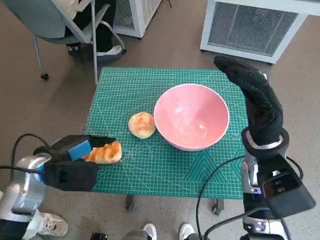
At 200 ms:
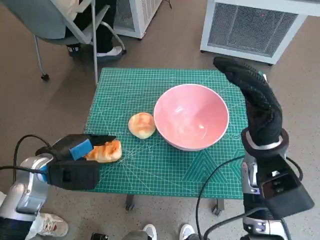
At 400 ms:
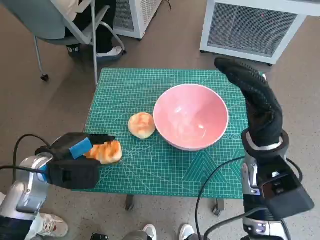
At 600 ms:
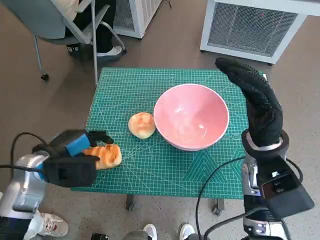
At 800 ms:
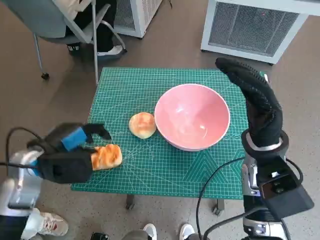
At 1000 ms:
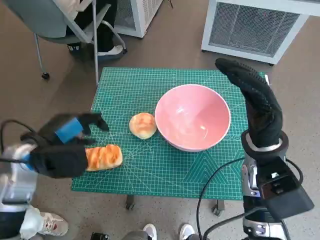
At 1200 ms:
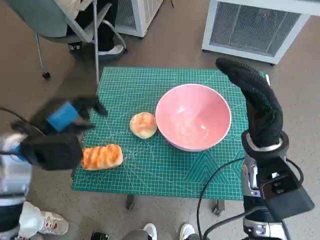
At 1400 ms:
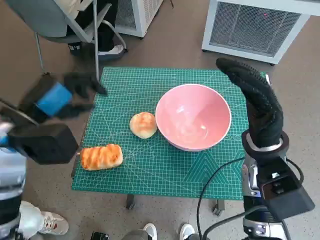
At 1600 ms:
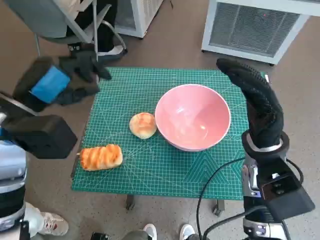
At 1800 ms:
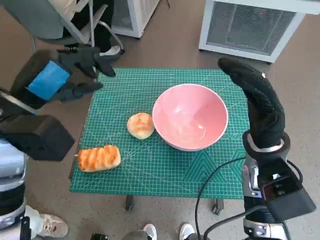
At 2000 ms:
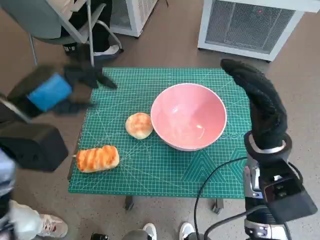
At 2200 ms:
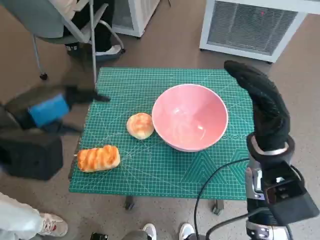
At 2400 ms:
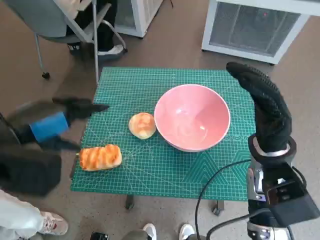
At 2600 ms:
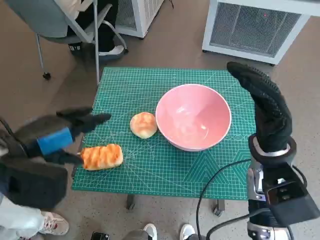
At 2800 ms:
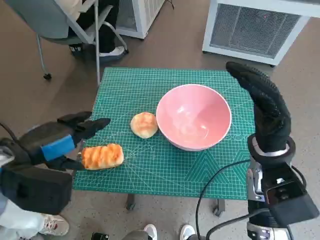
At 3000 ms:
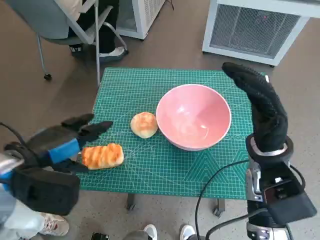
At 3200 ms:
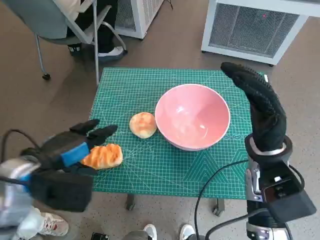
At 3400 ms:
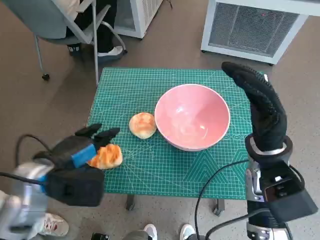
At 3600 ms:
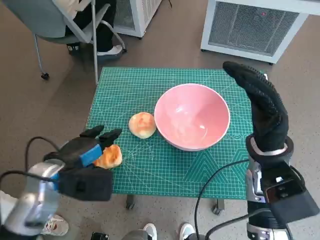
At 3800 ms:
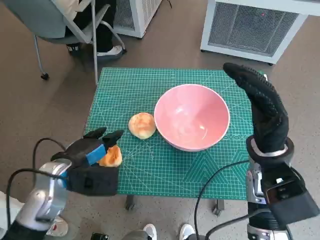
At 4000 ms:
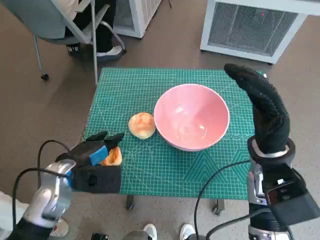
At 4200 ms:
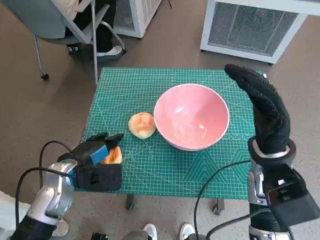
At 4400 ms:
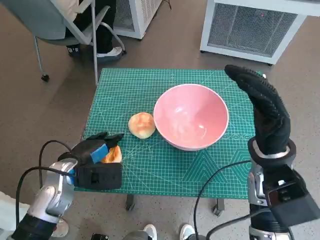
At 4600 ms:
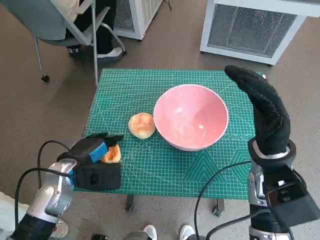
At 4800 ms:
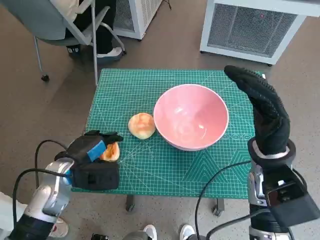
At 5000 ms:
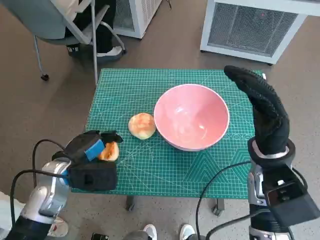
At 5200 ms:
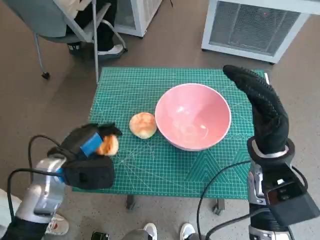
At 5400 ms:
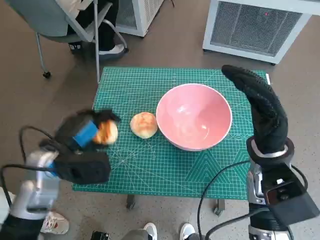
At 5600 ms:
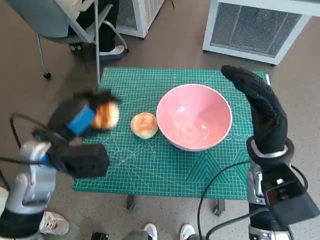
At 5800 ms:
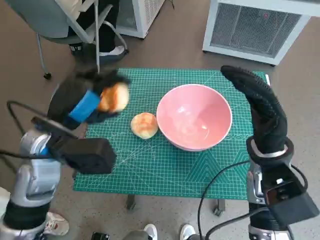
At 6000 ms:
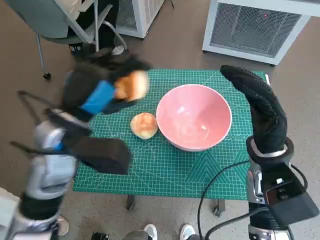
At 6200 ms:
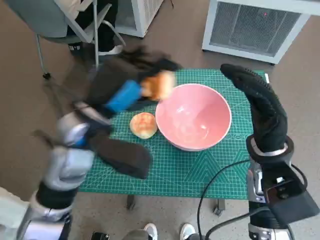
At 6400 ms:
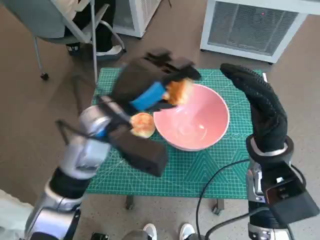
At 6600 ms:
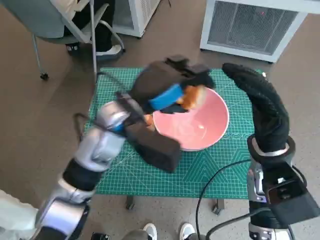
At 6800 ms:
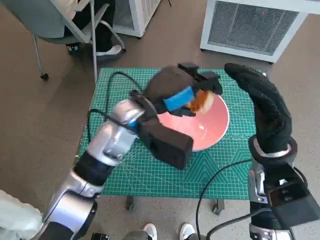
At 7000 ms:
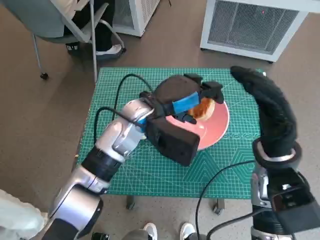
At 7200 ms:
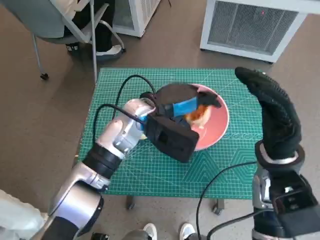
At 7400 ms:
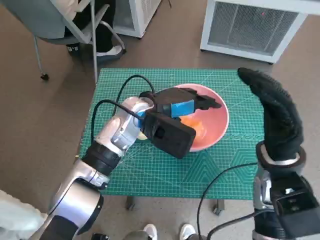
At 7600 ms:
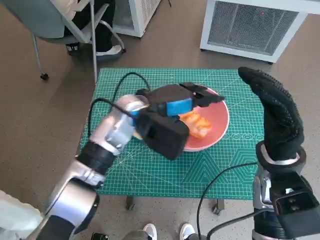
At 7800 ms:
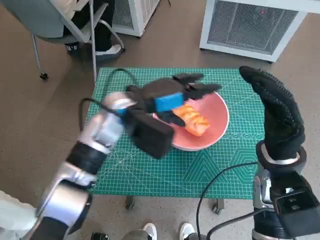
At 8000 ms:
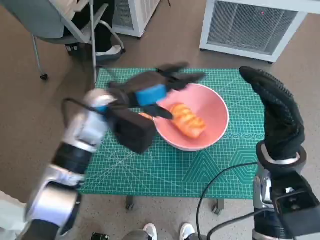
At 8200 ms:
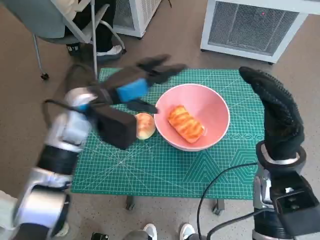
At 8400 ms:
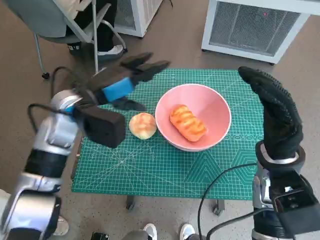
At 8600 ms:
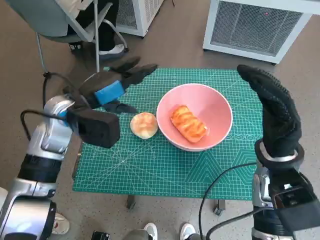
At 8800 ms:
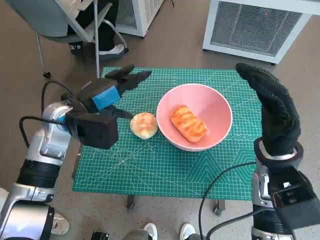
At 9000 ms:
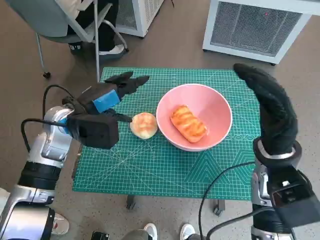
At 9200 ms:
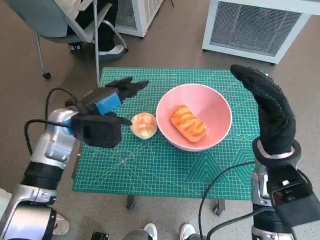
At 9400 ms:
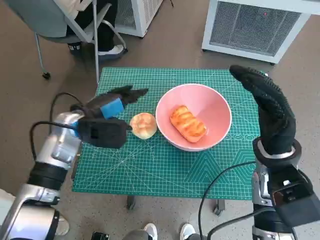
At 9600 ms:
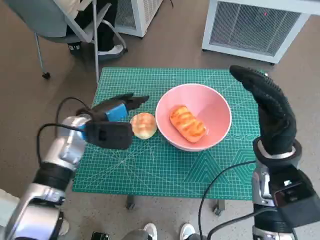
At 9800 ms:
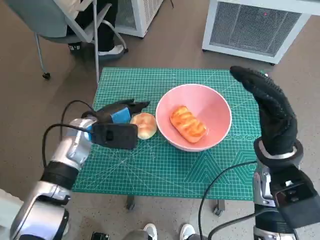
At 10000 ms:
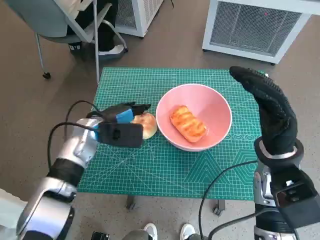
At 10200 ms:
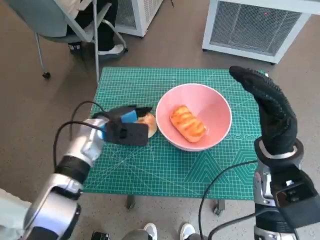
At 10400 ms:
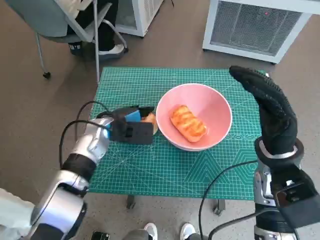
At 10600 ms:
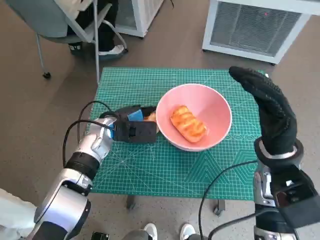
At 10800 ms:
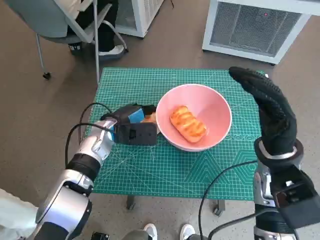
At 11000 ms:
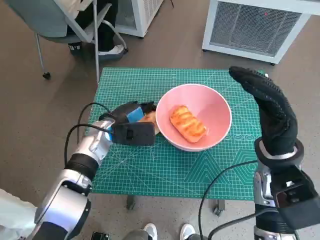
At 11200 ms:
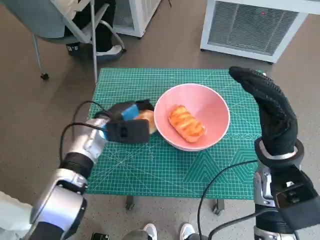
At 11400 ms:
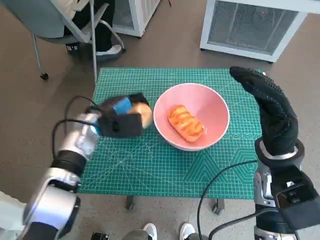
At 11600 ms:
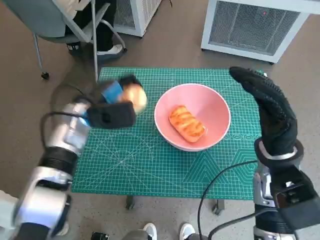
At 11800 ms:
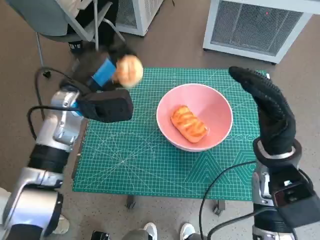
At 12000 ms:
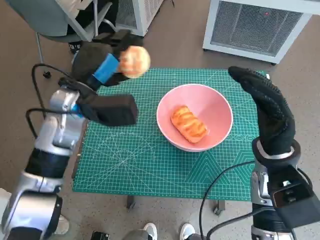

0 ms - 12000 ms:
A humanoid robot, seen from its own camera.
Task of the whole recording: Push the bowl to the center of the table and put the bread into the bowl.
Step, 0 ms - 4600 ms: Grasp the long bread with left hand.
Step, 4800 ms - 8200 ms: Place the long bread in pink bowl with left hand.
Step, 8400 ms - 10600 ms: Grasp the round bread with left hand.
0 ms - 1600 ms: The left hand is displaced upward by about 10 cm.
1600 ms - 3000 ms: The left hand heads backward, covering roughly 5 cm.
3000 ms - 4400 ms: The left hand travels downward by approximately 10 cm.
4400 ms - 6000 ms: The left hand heads upward, covering roughly 15 cm.
6000 ms - 7600 ms: The left hand shifts roughly 15 cm to the right and forward.
7600 ms - 9000 ms: The left hand heads to the left, covering about 15 cm.
9000 ms - 10400 ms: The left hand heads downward, covering approximately 10 cm.
10400 ms - 12000 ms: The left hand heads upward, covering approximately 10 cm.

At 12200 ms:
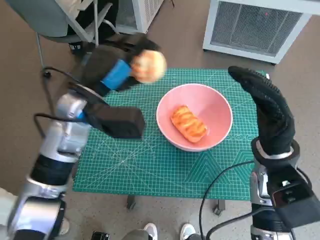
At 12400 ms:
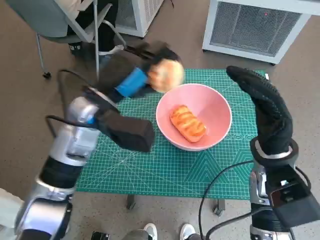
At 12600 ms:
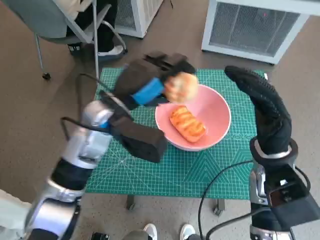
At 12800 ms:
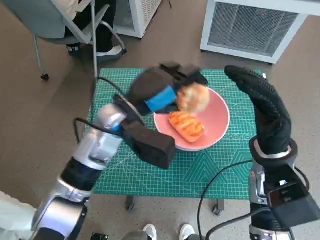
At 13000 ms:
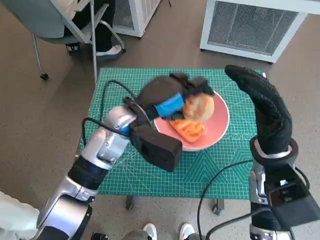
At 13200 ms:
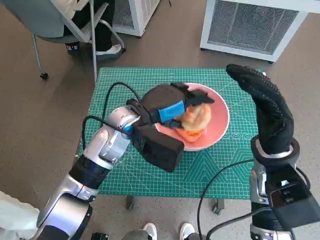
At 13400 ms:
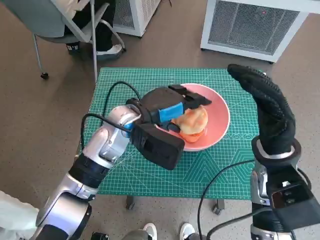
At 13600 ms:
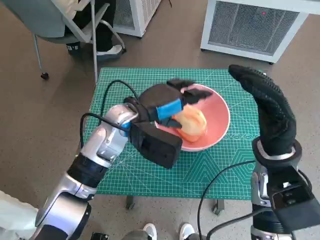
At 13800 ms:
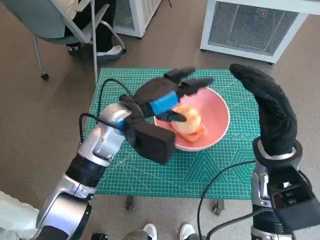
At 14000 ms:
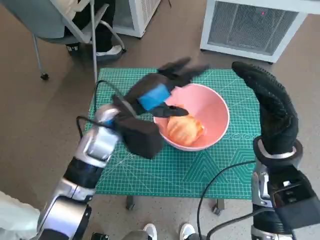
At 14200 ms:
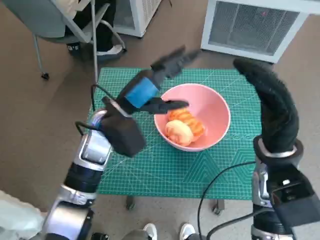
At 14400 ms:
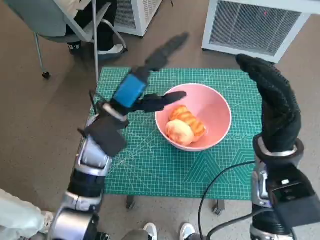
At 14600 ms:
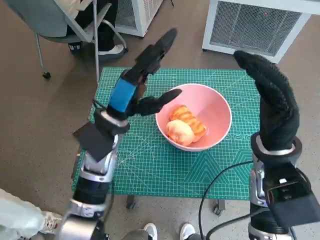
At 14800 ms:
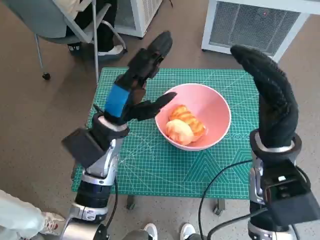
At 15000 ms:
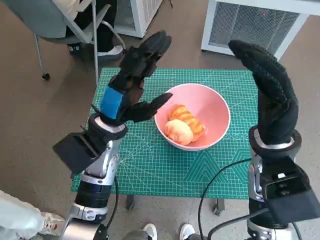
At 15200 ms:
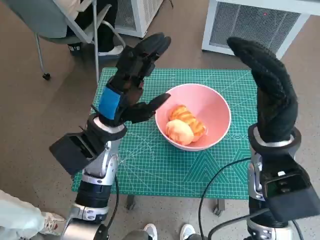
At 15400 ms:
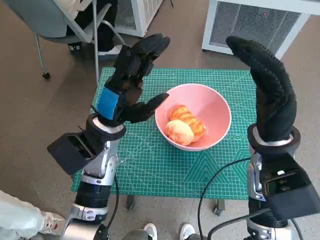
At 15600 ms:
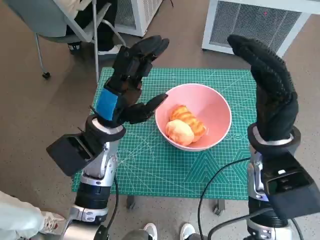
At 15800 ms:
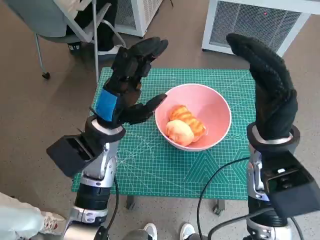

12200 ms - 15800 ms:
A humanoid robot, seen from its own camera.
Task of the whole recording: Push the bowl to the center of the table and put the bread into the bowl.
Step, 12200 ms - 13800 ms: Place the round bread in pink bowl with left hand.
12200 ms - 14000 ms: The left hand moves to the right, some 5 cm.
